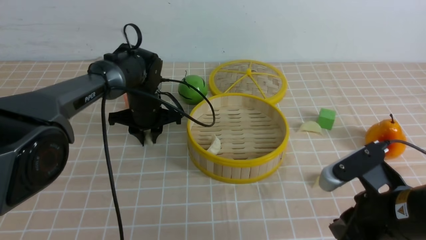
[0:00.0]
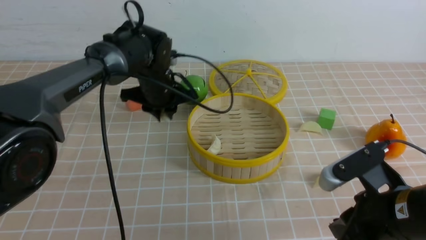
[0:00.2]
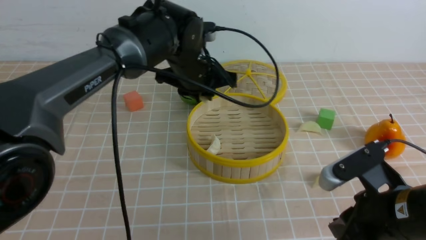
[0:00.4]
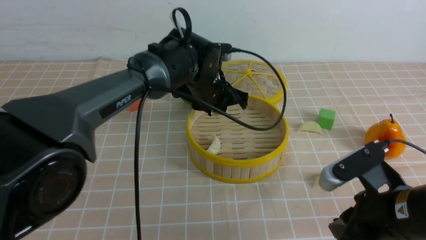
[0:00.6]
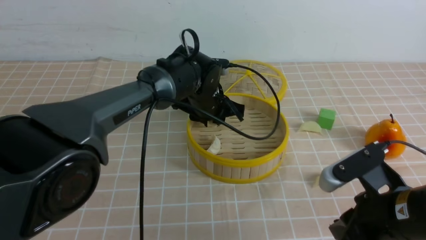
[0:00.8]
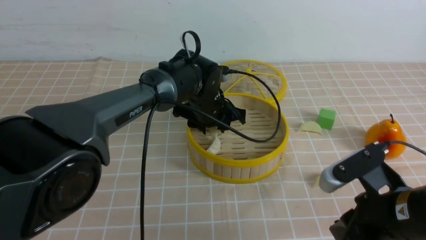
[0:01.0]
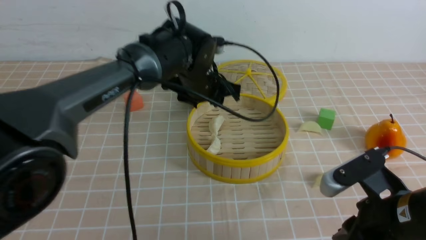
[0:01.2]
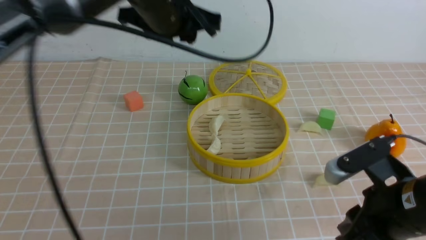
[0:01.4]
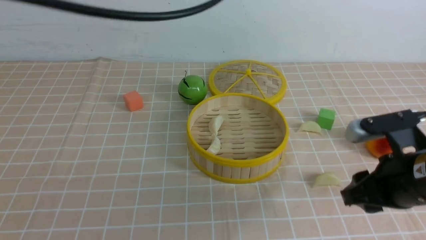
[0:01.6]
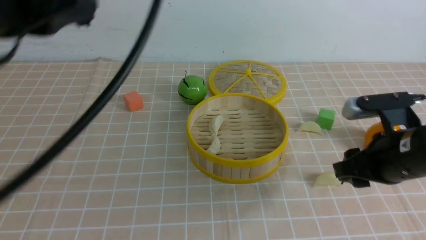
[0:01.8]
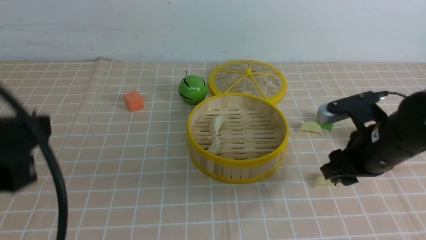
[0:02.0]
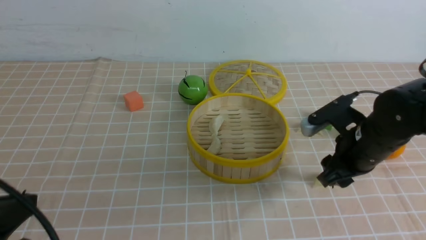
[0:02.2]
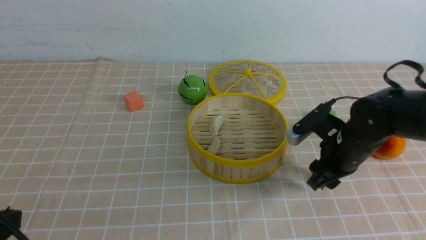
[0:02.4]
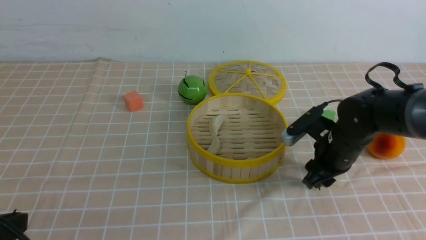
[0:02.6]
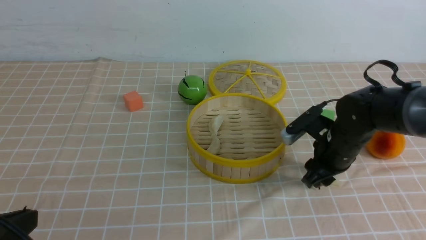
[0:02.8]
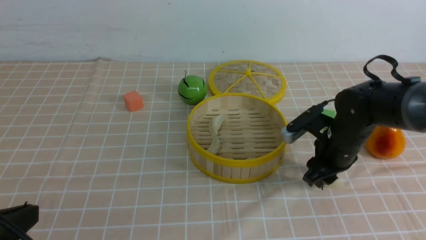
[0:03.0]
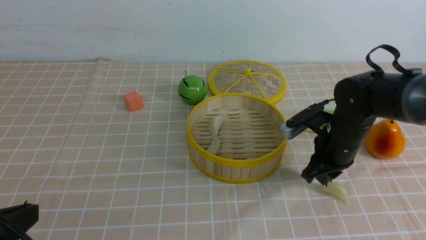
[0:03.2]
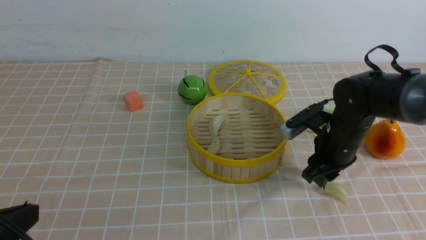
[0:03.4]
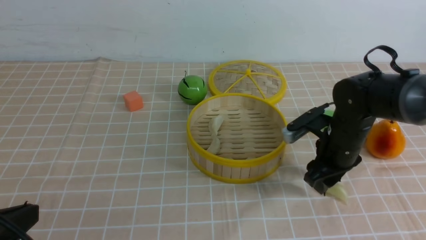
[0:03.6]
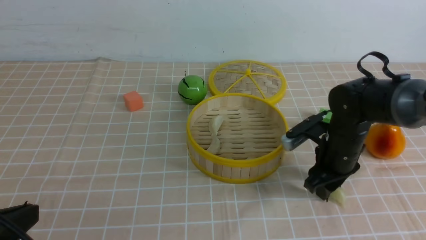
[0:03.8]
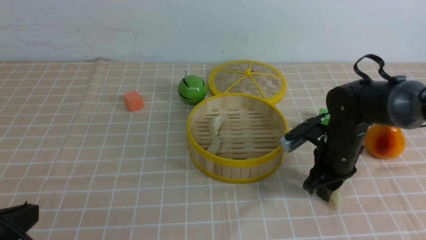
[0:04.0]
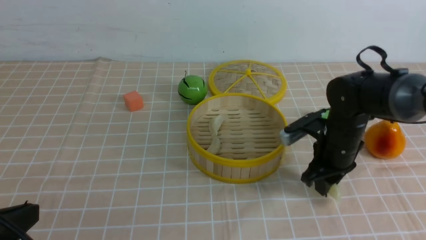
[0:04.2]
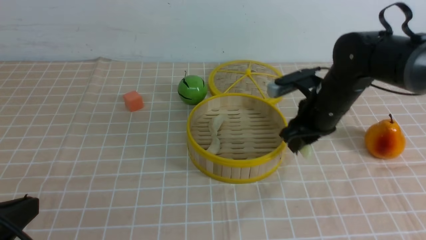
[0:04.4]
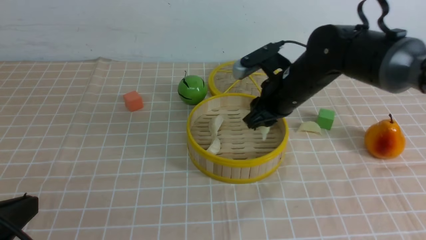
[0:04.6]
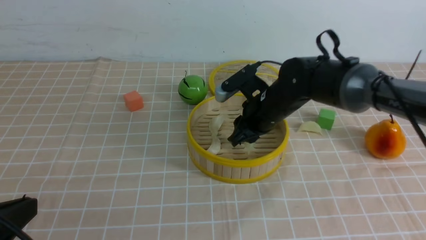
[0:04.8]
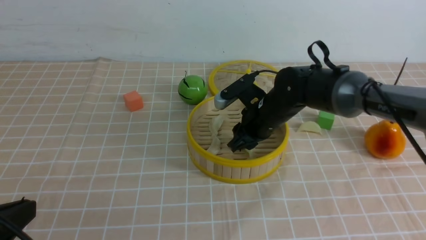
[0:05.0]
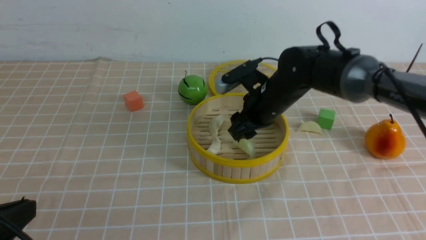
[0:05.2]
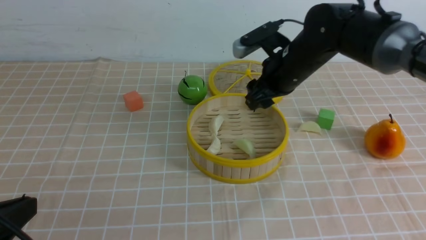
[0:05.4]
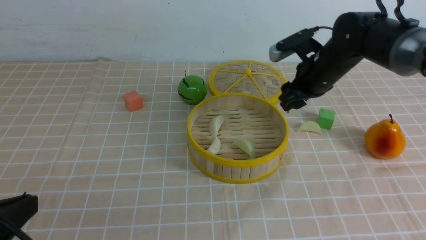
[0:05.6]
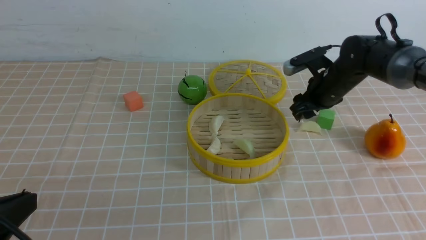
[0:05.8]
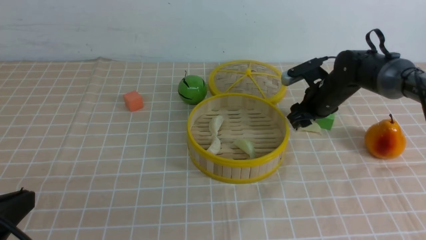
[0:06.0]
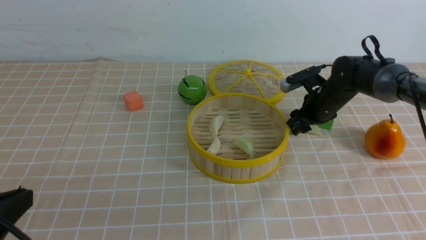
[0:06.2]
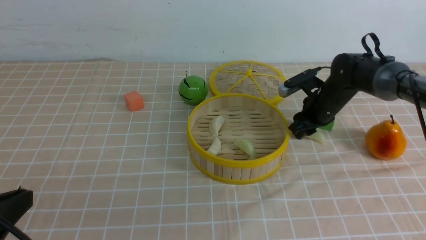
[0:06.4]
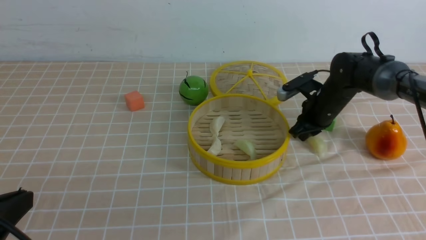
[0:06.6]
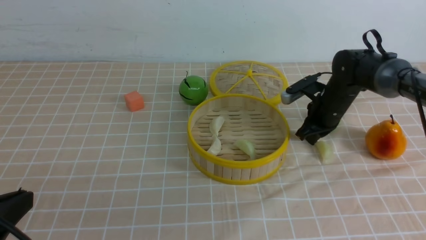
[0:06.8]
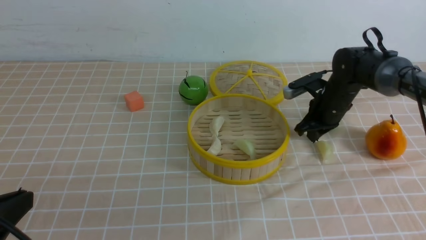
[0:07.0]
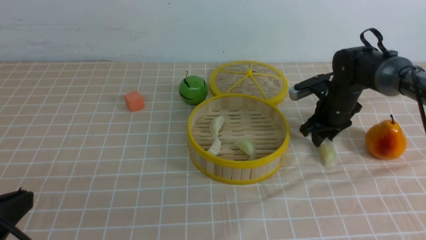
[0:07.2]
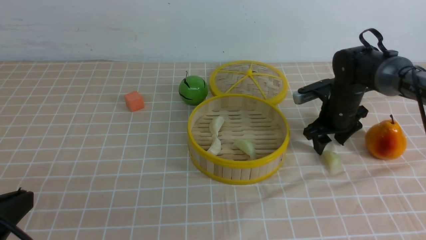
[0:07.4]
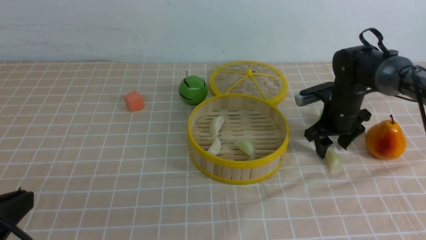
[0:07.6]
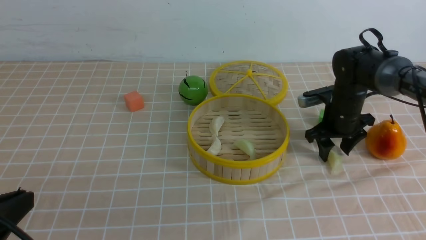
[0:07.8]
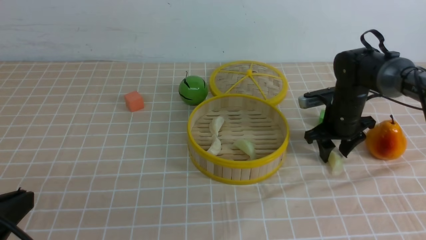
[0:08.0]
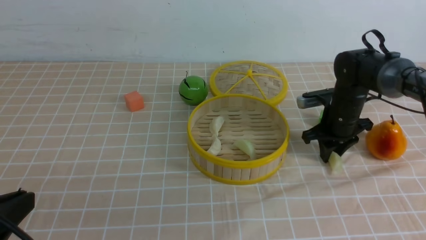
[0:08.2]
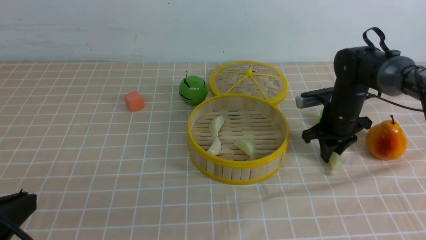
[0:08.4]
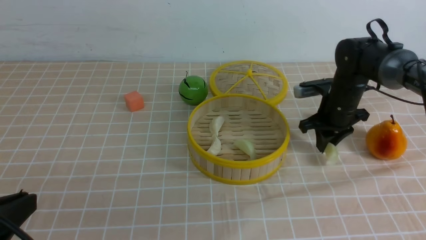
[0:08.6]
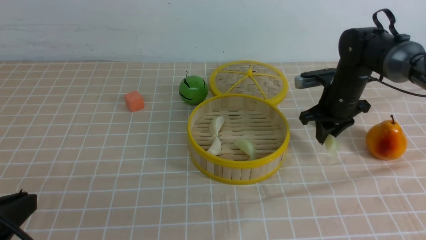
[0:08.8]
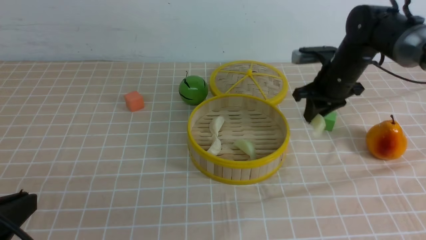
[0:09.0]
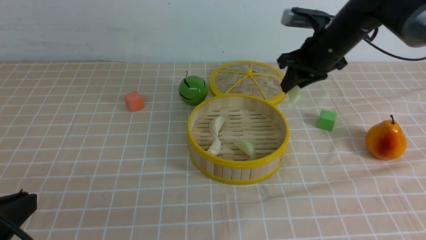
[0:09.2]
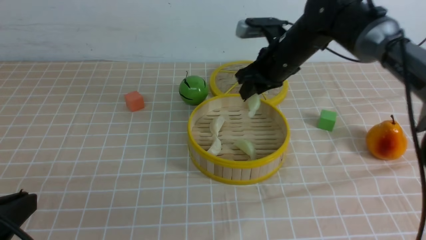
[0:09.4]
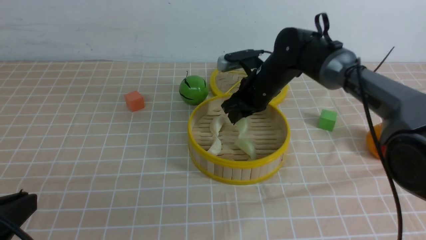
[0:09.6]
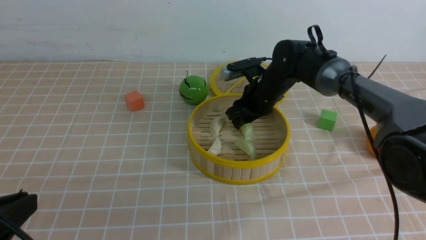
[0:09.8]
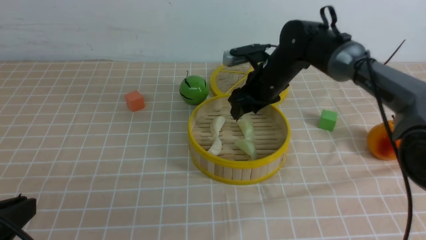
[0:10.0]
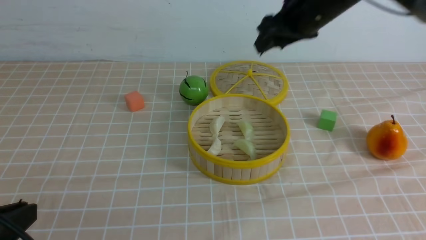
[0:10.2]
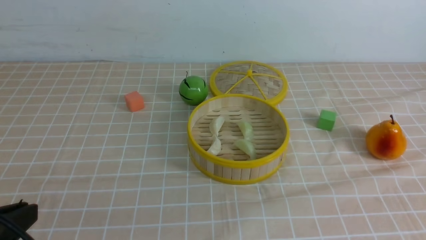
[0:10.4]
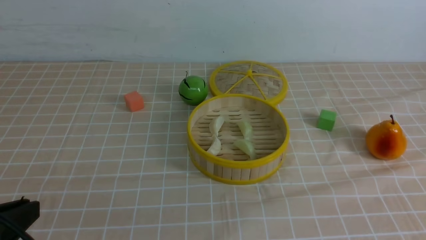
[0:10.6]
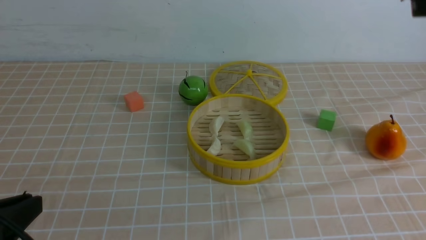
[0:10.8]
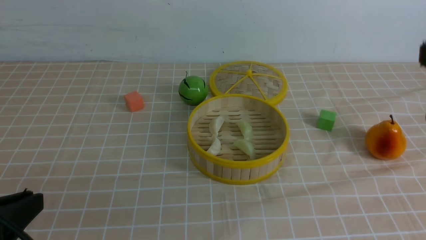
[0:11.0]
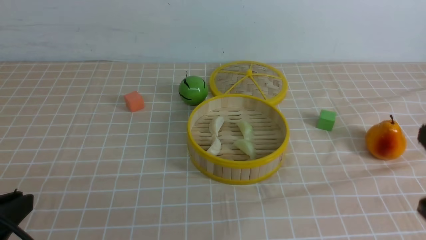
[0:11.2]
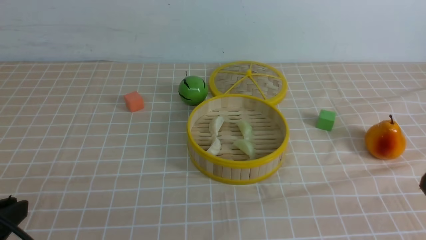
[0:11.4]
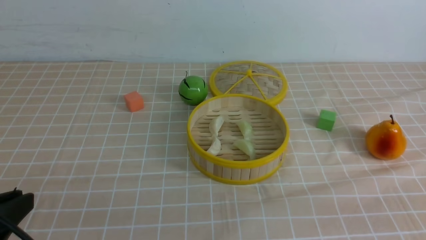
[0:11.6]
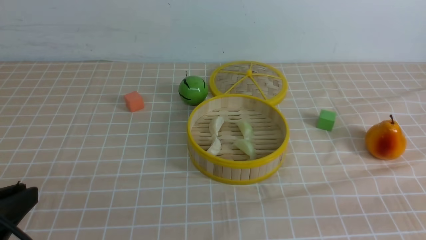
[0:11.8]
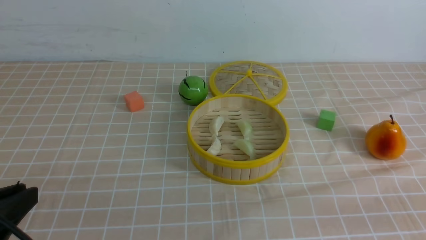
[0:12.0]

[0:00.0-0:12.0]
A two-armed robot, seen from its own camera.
Task of the whole recording: put the dumplings into the steamer on the table with the brown tablecloth.
Step, 0:00.2 to 0:01.2: use the left arm to put the dumpling into the steamer.
Step, 0:01.4 to 0:03.8: use the right arm to grab a dumpling.
Step, 0:04.0 to 0:05.2: use the right arm to put the dumpling into the steamer.
Step, 0:05.4 to 0:08.4: use the right arm to grab a dumpling.
Step, 0:08.6 to 0:10.0: use the right arm to put the dumpling into the steamer.
0:00.0 to 0:01.6: The left gripper goes up and down, about 30 cm each way, reversing 2 times. The right gripper opens.
0:01.6 to 0:03.0: The left gripper is displaced downward, backward and to the left by some 30 cm. Meanwhile the right gripper shifts about 15 cm forward and downward.
0:03.0 to 0:04.4: The right gripper travels upward by approximately 5 cm.
0:04.4 to 0:06.0: The right gripper heads forward, to the right and downward, covering some 15 cm, and opens its fingers.
0:06.0 to 0:07.6: The right gripper closes, then opens again.
0:07.6 to 0:09.0: The right gripper is displaced upward by some 10 cm, and closes its fingers.
0:09.0 to 0:10.4: The right gripper heads upward and backward, covering some 25 cm, and opens, then closes once more.

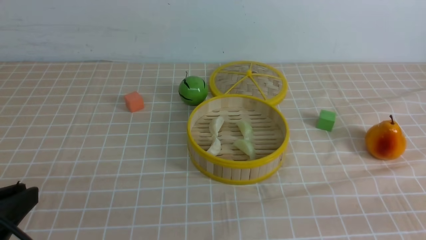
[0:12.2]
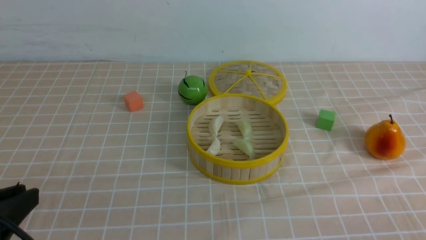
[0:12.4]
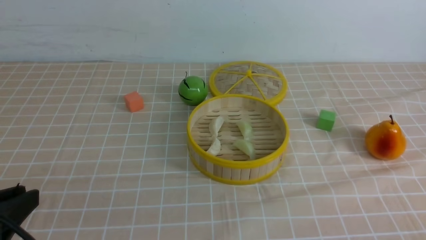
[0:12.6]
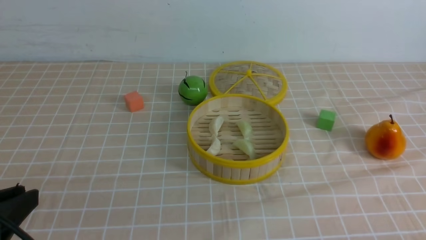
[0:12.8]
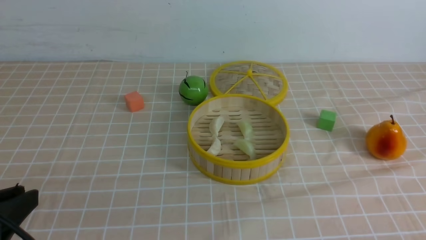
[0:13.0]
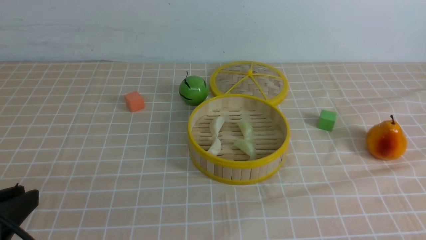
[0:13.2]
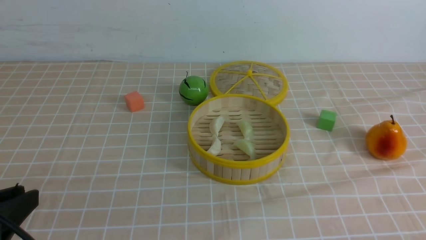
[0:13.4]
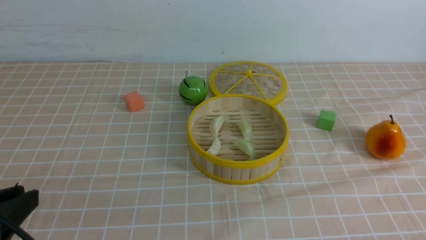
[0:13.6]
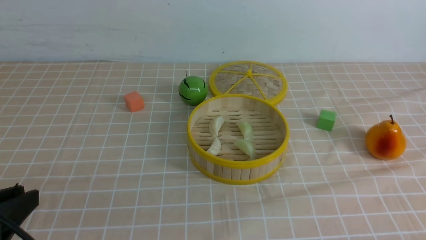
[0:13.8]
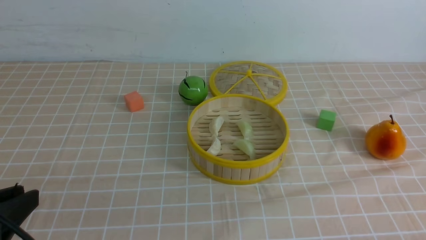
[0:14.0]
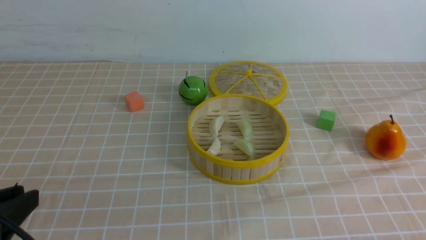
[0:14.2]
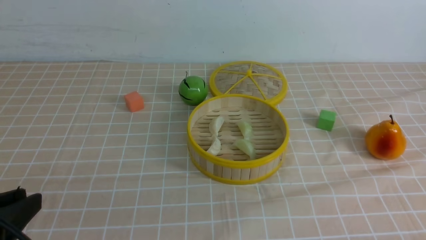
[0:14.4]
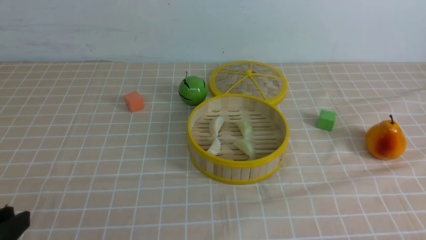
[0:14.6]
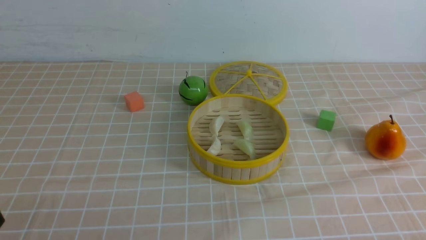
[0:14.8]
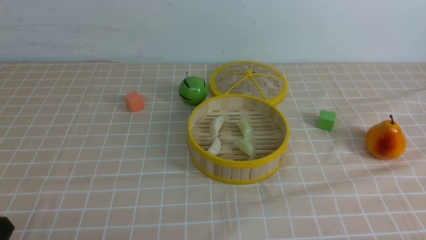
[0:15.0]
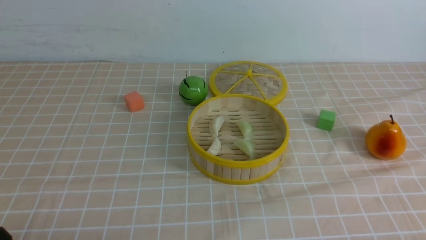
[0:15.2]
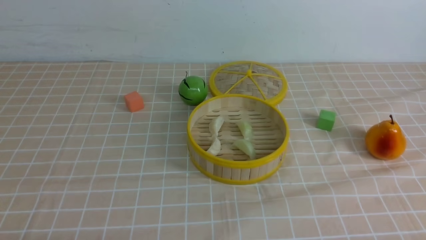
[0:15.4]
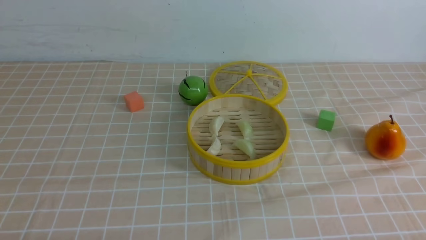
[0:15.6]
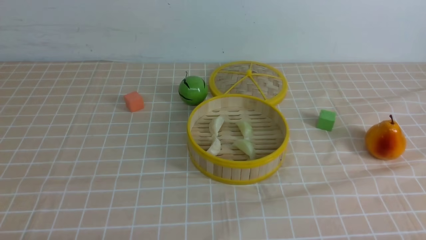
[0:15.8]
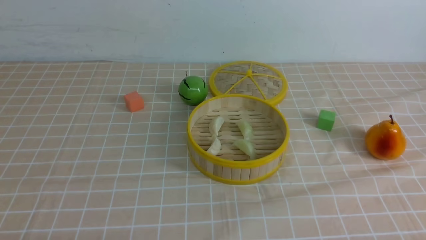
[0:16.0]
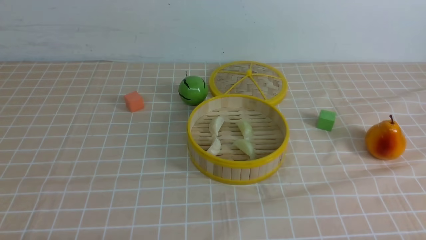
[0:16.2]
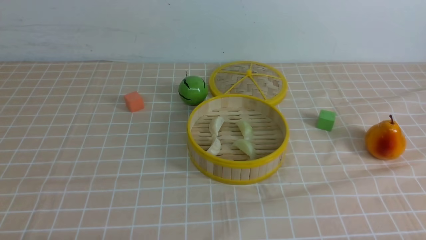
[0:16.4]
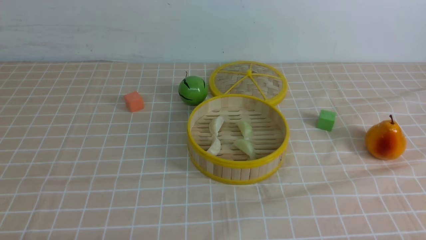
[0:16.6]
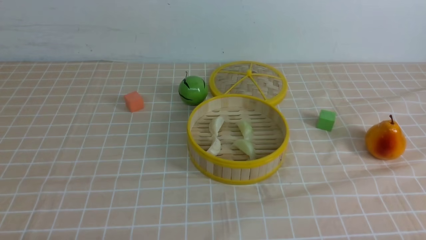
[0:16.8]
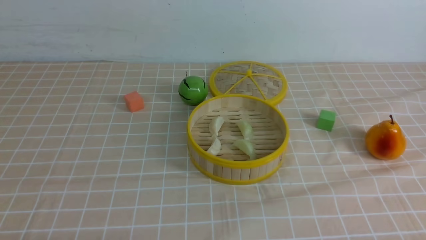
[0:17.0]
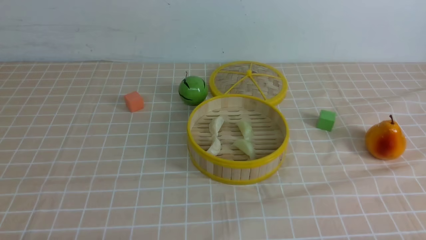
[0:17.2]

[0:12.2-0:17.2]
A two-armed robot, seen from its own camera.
Task of the whole recording: put the dumplings into the steamer on the table with the brown tablecloth.
0:13.8 to 0:15.6: The left gripper is displaced downward by about 10 cm, and closes its fingers.
0:15.6 to 0:17.2: Both grippers stay put.
